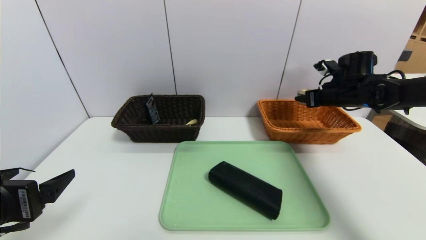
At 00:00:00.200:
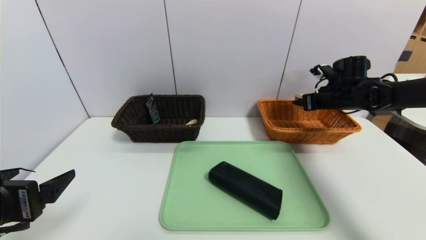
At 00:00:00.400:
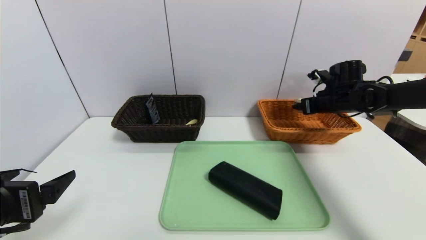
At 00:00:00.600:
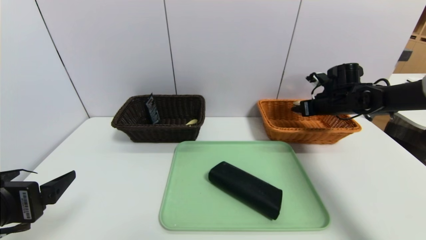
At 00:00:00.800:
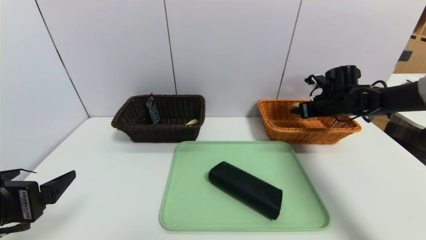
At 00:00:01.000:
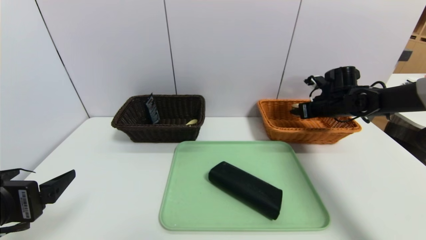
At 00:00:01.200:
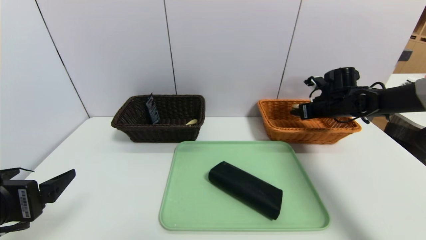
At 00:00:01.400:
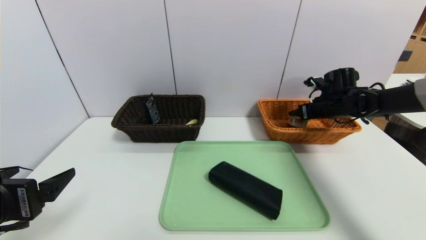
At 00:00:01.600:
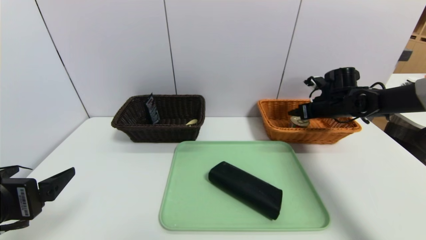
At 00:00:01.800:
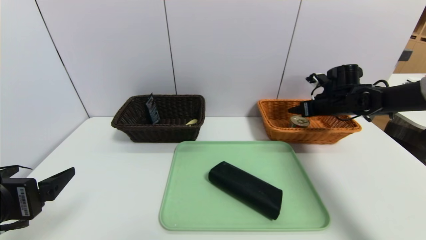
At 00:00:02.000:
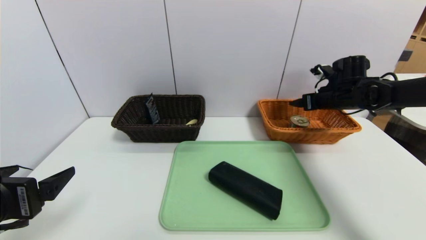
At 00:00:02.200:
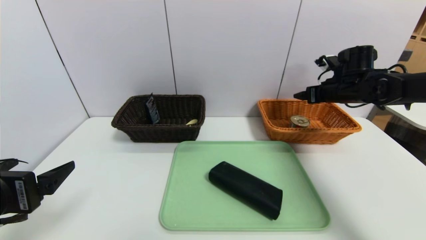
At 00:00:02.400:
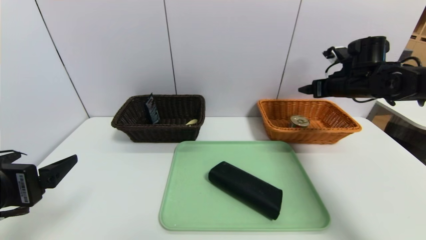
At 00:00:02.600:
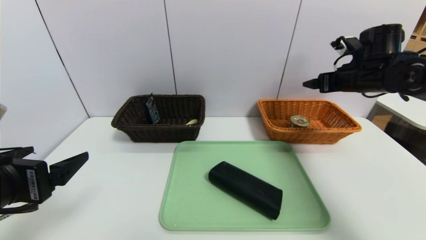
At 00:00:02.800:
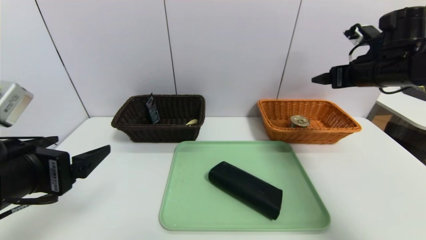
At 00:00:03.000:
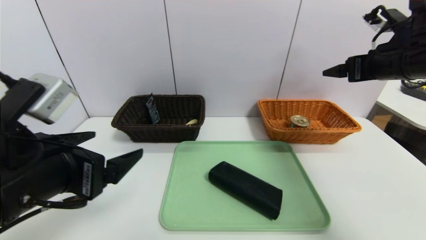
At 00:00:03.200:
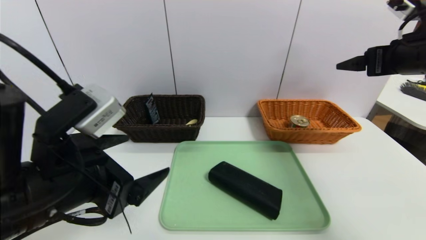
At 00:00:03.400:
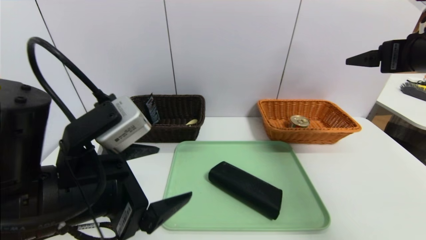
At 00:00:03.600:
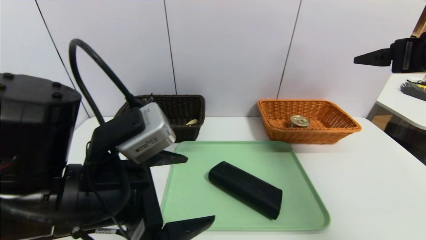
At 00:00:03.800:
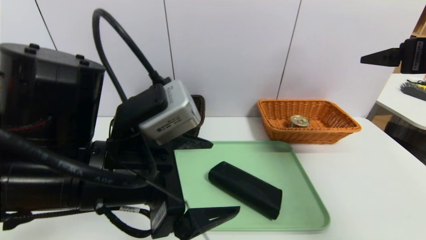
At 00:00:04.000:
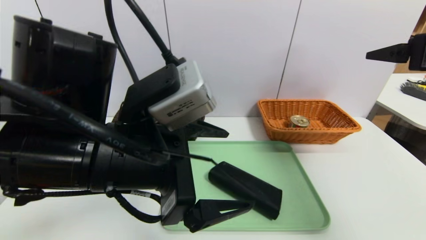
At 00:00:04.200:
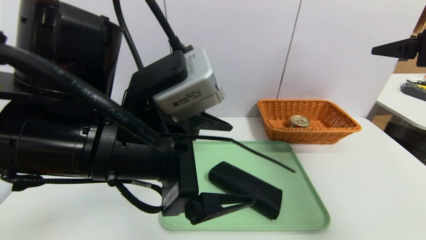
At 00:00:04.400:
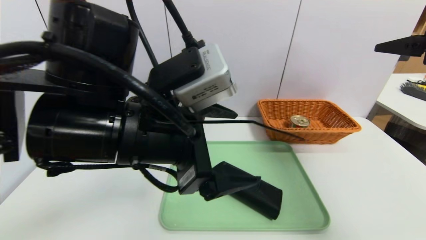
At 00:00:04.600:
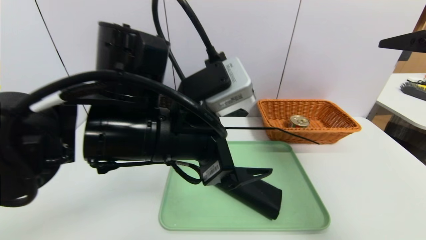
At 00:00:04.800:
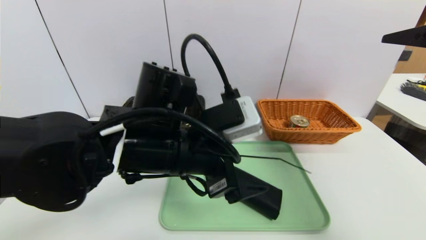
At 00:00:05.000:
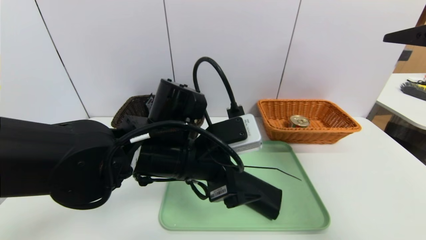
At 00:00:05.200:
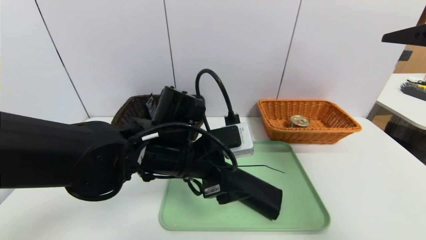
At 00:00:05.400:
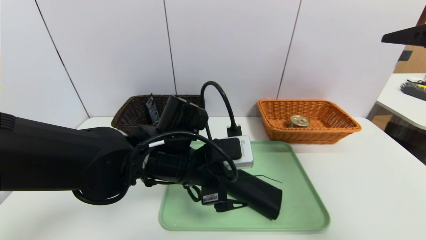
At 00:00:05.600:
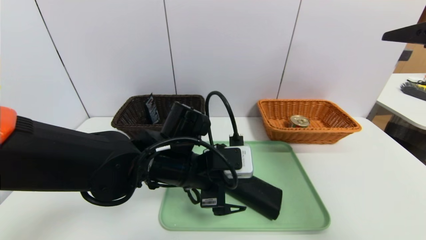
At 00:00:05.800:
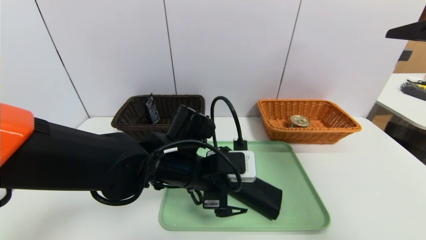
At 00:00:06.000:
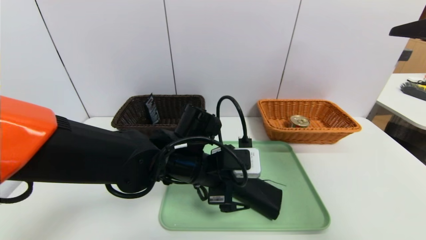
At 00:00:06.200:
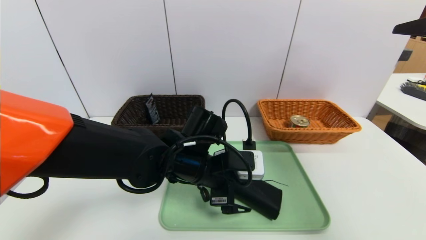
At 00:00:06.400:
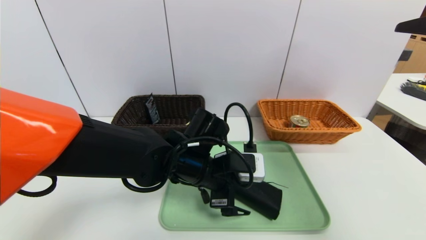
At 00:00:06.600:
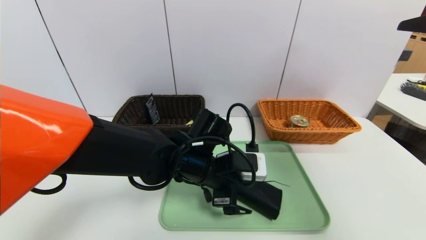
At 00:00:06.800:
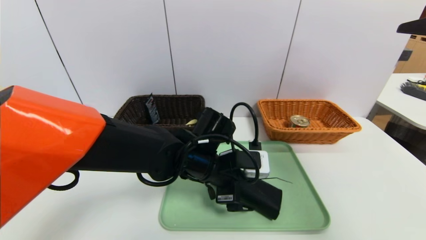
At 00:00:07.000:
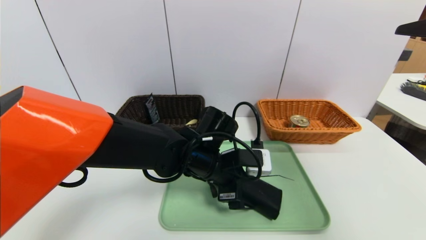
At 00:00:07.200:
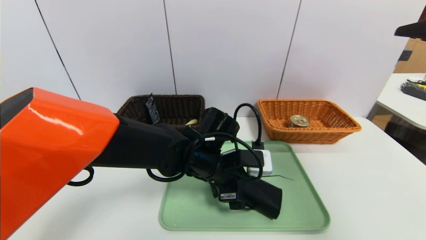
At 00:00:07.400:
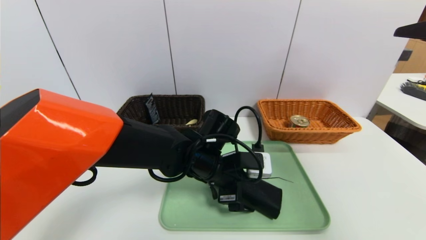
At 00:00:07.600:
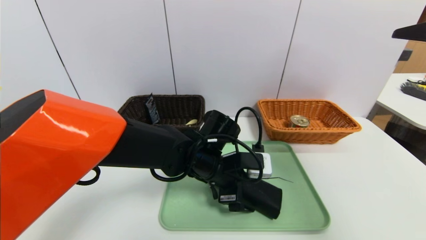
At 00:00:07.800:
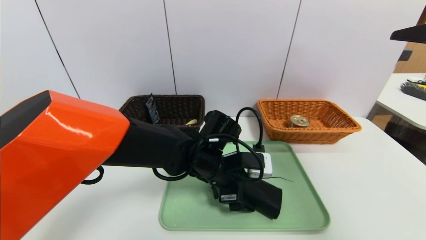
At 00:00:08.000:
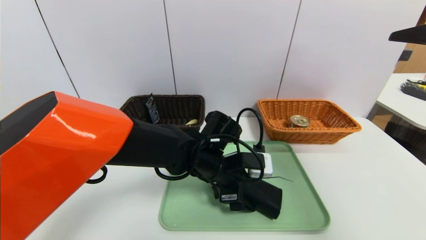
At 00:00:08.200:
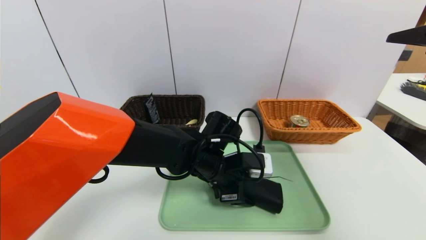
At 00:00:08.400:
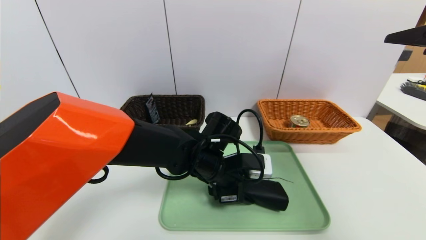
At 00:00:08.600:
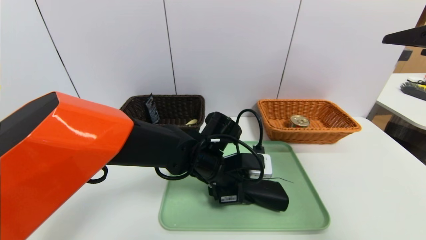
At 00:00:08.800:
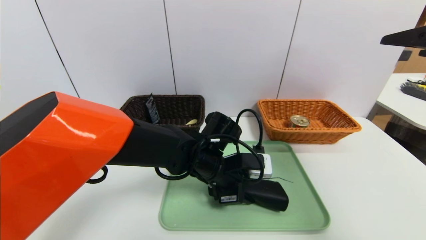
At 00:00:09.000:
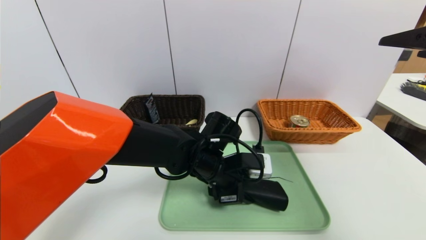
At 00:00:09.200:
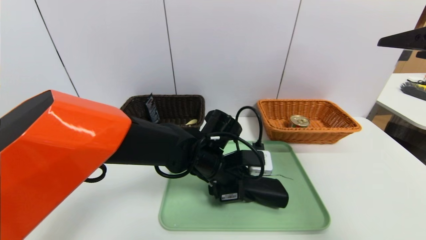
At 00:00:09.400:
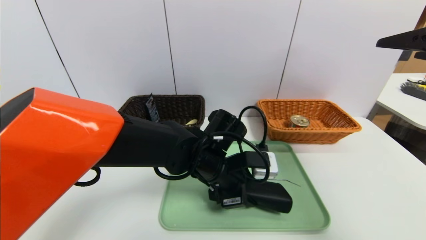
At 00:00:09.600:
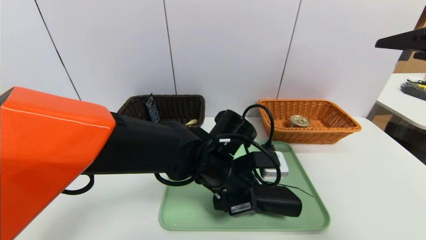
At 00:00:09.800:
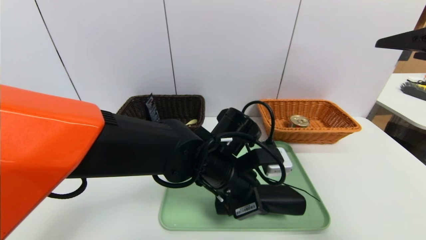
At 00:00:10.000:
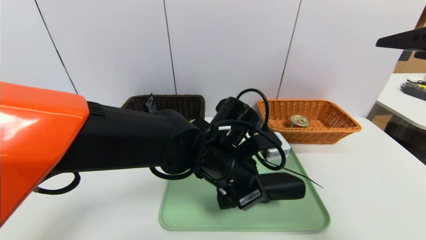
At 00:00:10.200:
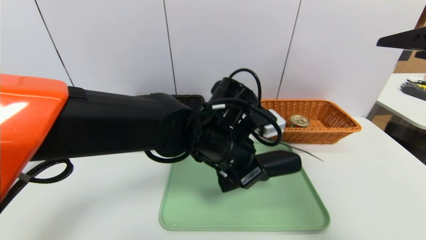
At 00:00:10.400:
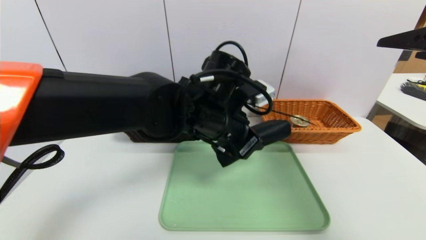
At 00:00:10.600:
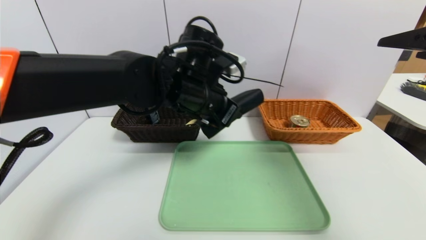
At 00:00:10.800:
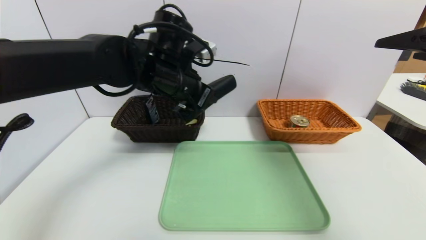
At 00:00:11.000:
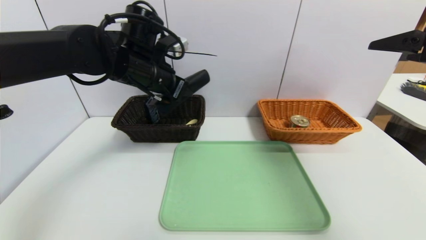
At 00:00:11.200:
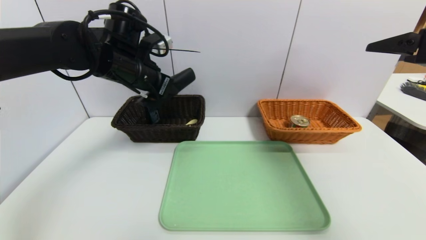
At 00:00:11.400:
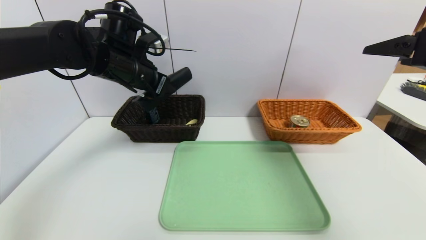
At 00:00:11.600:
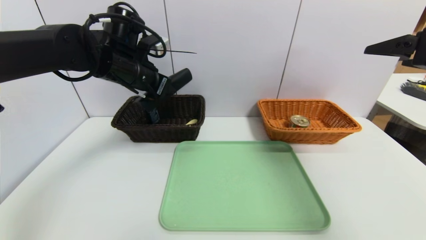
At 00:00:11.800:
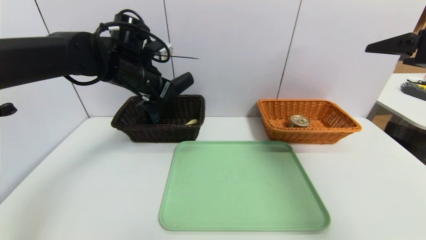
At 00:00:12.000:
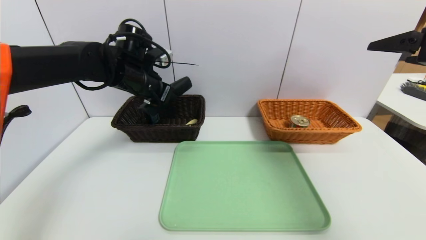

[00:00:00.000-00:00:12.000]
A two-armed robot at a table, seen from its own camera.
Task of the whole recording: place the food in the right basket with the right gripper, and place the non food items in the left basket with the left gripper.
00:00:00.000 to 00:00:01.600: The right gripper opens up.
00:00:01.600 to 00:00:03.000: The right gripper moves upward and backward, roughly 20 cm, and opens up; the left gripper travels to the right by approximately 10 cm.
00:00:03.000 to 00:00:04.400: The left gripper is displaced to the right and forward by about 10 cm, while the right gripper travels backward by about 10 cm.
00:00:04.400 to 00:00:06.000: The left gripper moves downward, forward and to the right, approximately 15 cm.
00:00:06.000 to 00:00:07.600: The grippers move only a little.
00:00:07.600 to 00:00:09.000: The left gripper closes up.
00:00:09.000 to 00:00:10.400: The left gripper shifts approximately 10 cm upward.
00:00:10.400 to 00:00:12.000: The left gripper moves to the left and forward, approximately 20 cm.

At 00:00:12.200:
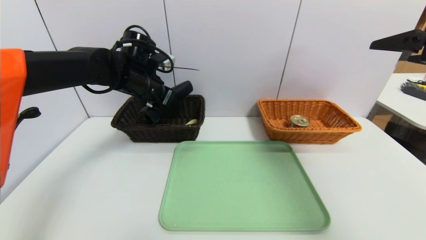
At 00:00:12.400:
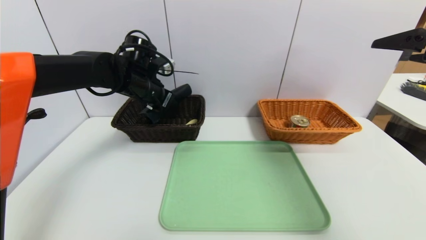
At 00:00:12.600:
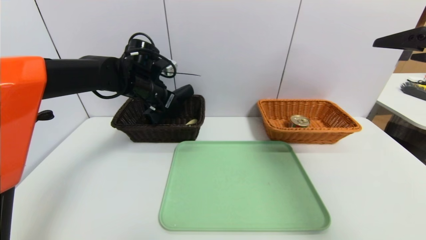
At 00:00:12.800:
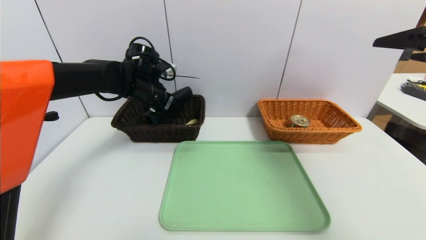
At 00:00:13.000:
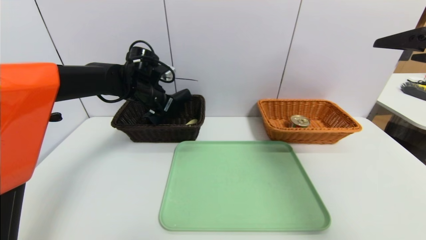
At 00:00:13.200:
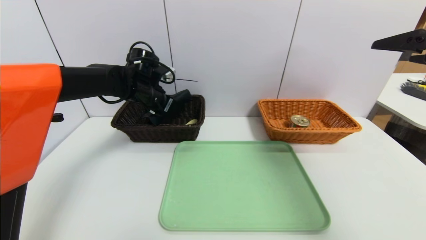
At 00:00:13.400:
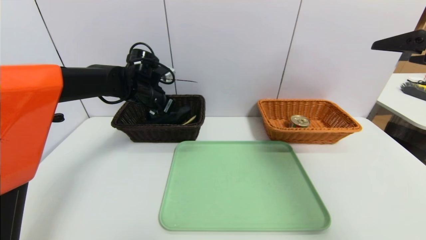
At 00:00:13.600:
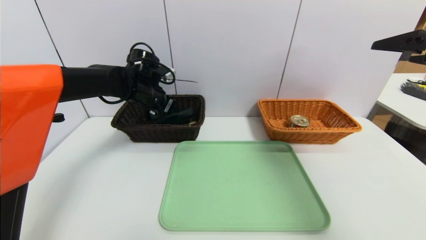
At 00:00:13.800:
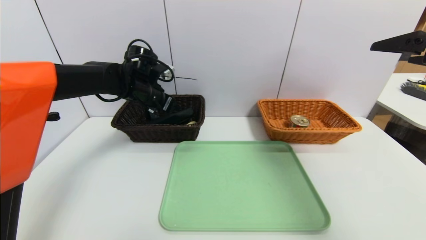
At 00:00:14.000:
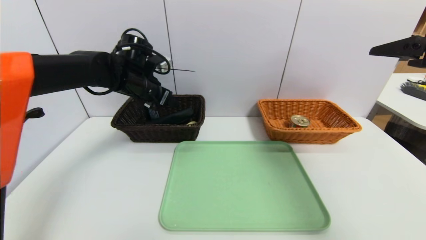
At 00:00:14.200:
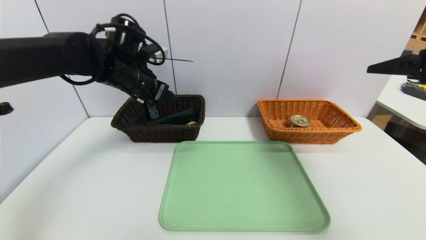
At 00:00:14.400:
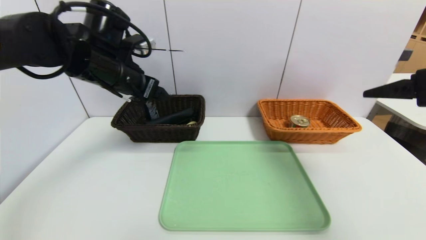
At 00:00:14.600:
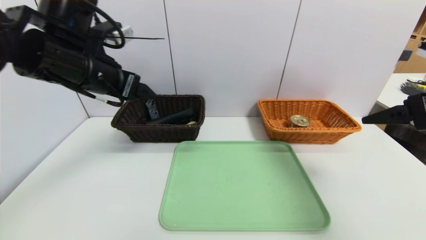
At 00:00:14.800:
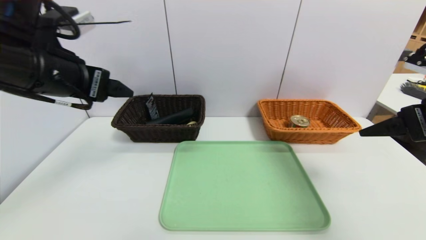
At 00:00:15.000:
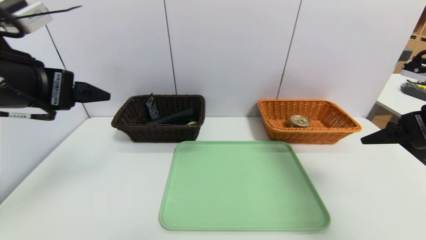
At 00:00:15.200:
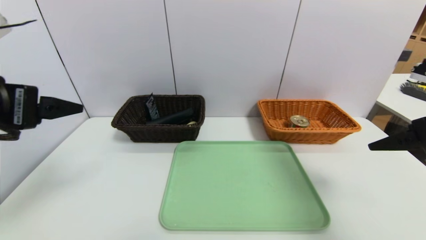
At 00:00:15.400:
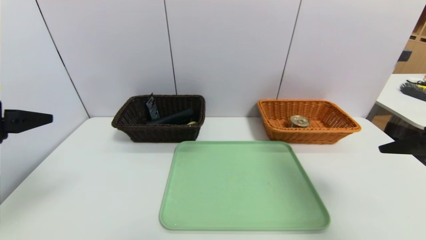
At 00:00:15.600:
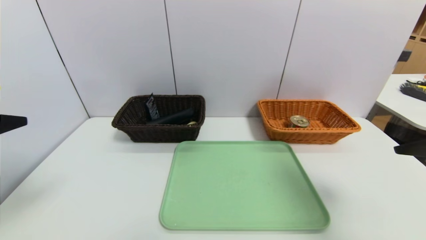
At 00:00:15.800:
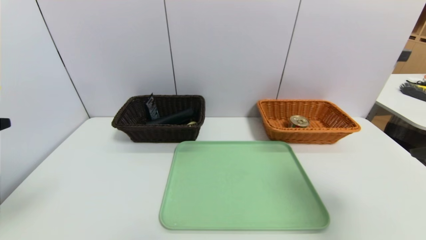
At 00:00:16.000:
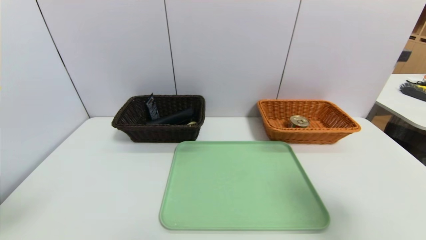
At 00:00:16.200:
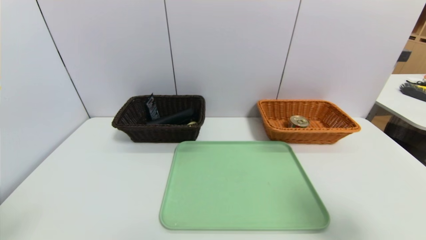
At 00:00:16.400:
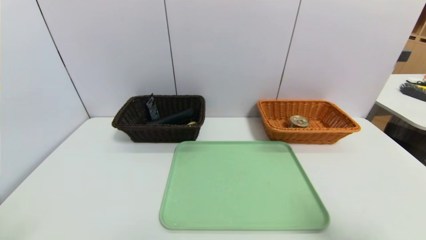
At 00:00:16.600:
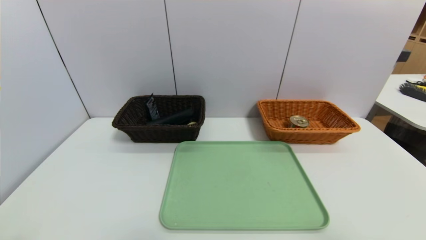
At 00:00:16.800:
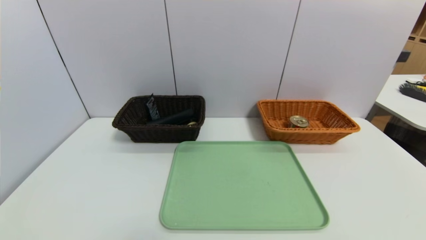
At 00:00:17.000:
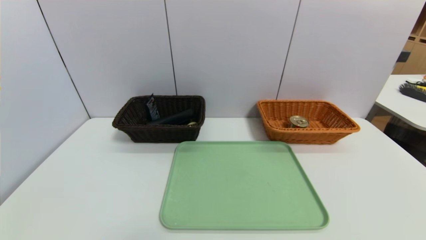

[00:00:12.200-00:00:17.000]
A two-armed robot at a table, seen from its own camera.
Task of the whole recording: place the food in the right basket with the right gripper, and place the non food items in the left basket with the left gripper.
00:00:12.200 to 00:00:13.800: The left gripper opens up.
00:00:13.800 to 00:00:15.400: The left gripper moves backward, approximately 30 cm, while the right gripper shifts roughly 5 cm downward.
00:00:15.400 to 00:00:17.000: Both grippers travel together backward and downward, roughly 25 cm.
